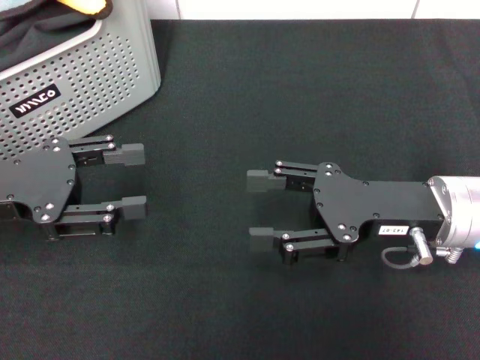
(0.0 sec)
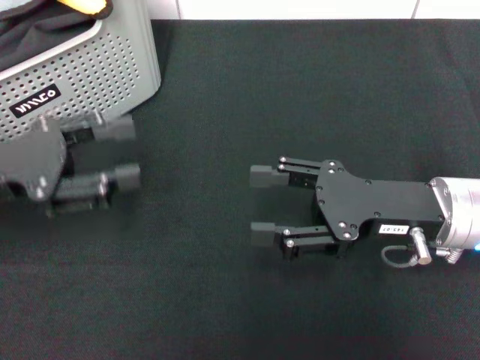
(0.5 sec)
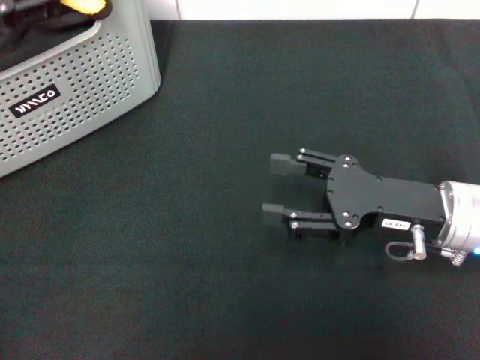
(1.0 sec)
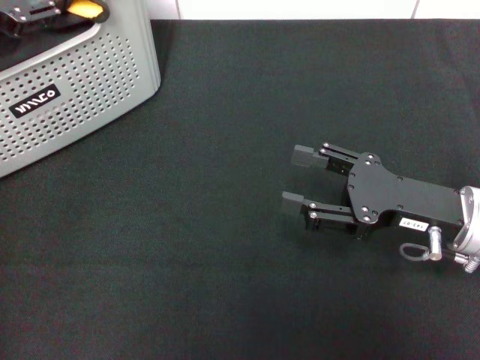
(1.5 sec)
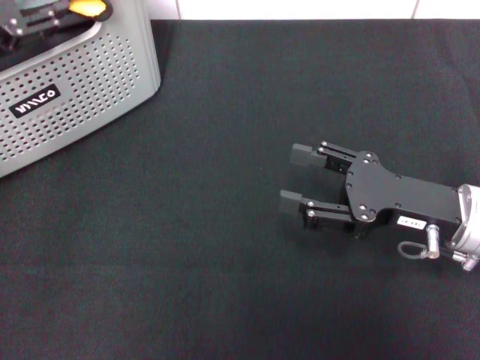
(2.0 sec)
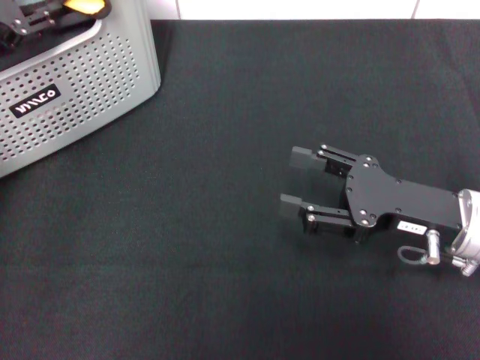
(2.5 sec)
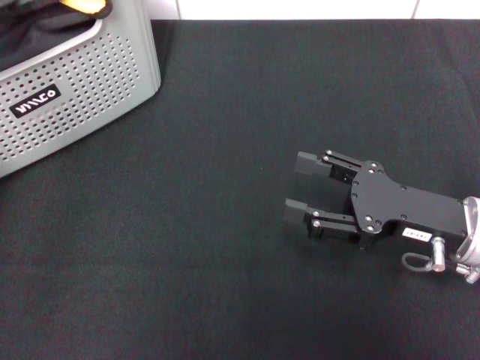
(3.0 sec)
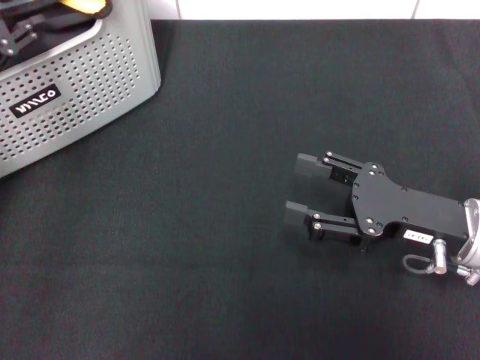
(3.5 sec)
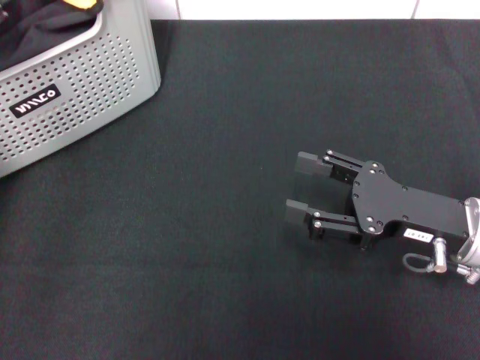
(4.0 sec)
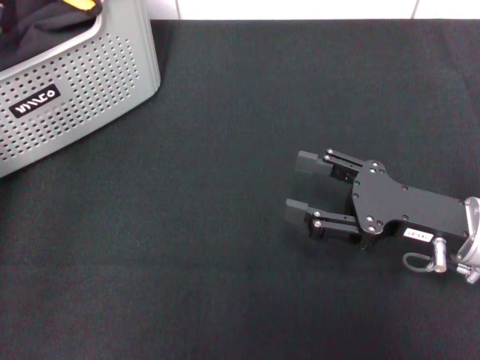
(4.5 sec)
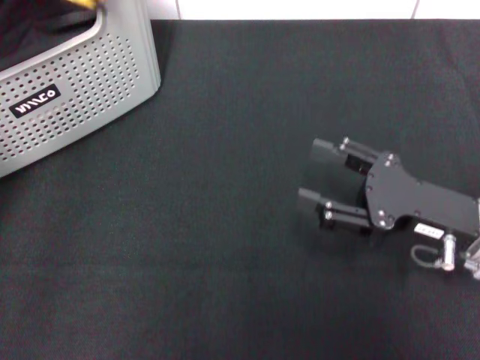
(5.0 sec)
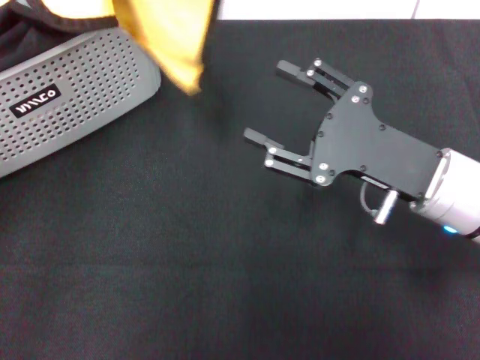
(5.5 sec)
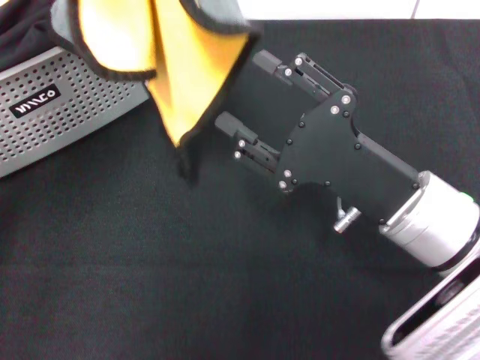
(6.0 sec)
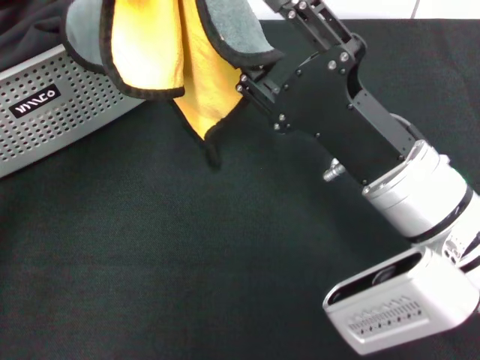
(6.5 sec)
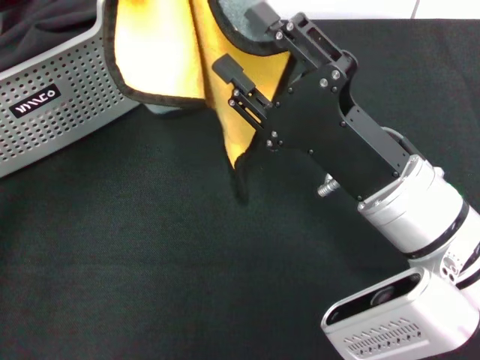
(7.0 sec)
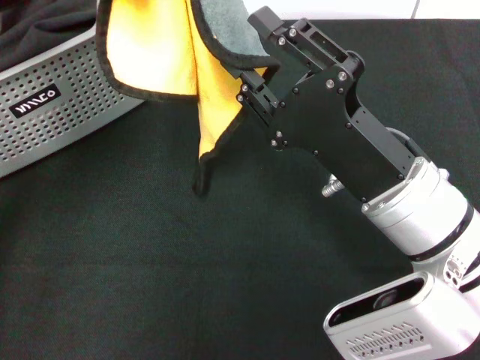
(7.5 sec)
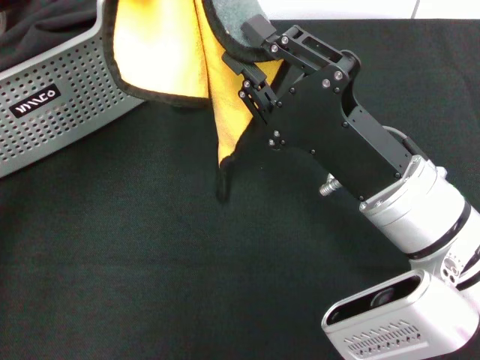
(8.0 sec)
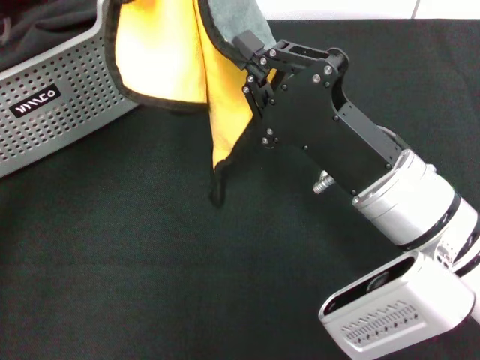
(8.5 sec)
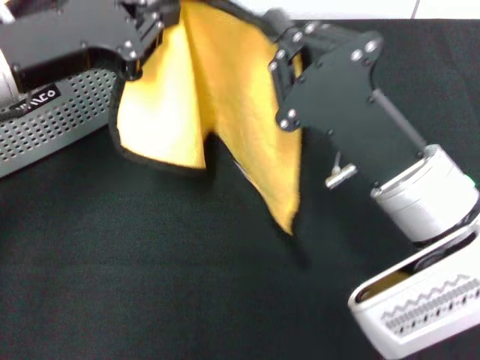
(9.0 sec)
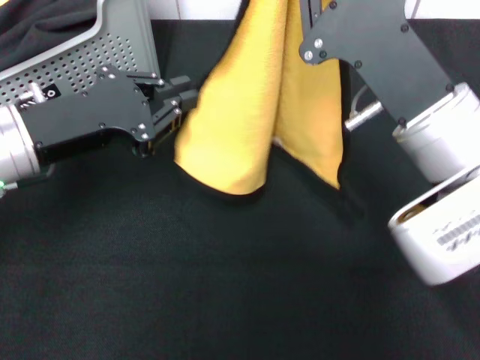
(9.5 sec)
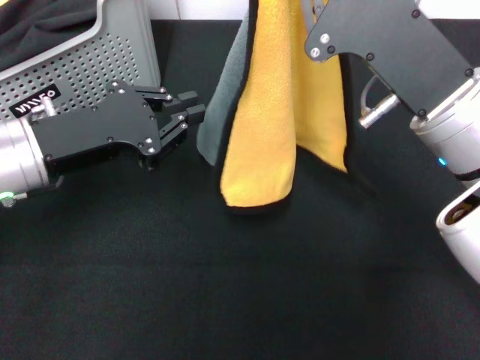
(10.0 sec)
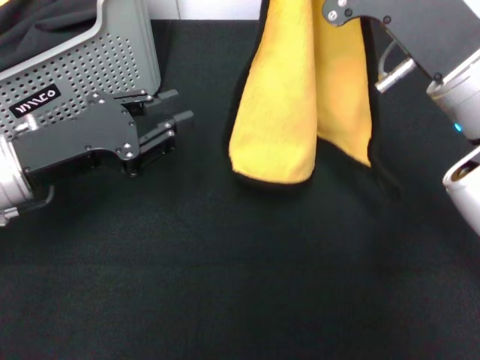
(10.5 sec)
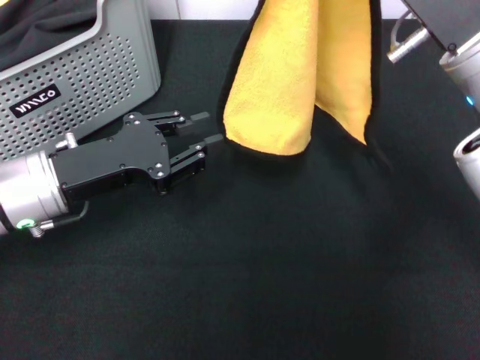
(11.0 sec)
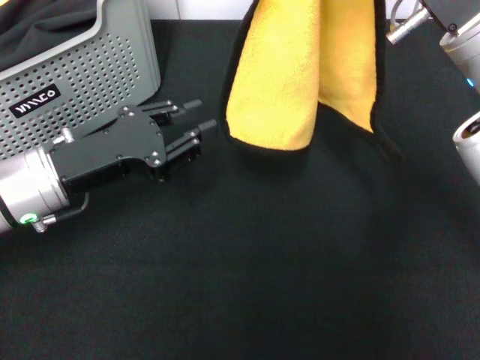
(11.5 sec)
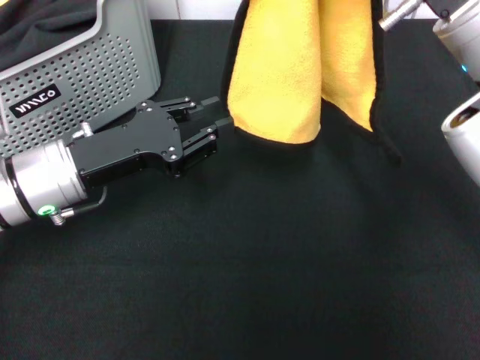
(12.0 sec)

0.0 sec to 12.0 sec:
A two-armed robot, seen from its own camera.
Task of the whole recording: pick up the towel from the storage box and lay it flat on the black tablecloth.
Step, 0.0 sec to 4.5 sec: Pick up a towel with the left gripper.
Step, 5.0 sec to 8.5 sec: Spread the towel flat with the left gripper.
0.0 sec to 2.0 sec: The left gripper heads upward and forward, covering some 10 cm.
2.0 sec to 4.0 sec: The left gripper closes its fingers.
4.0 sec to 6.0 sec: The left gripper shifts some 10 cm to the right, upward and backward, and closes its fingers; the right gripper is displaced to the left by some 5 cm.
6.0 sec to 8.0 sec: The right gripper closes its fingers.
8.0 sec to 10.0 sec: The right gripper travels upward by some 5 cm, and closes its fingers. The left gripper heads downward, covering approximately 15 cm.
10.0 sec to 12.0 sec: The right gripper shifts by roughly 5 cm. Meanwhile the left gripper travels downward by roughly 5 cm.

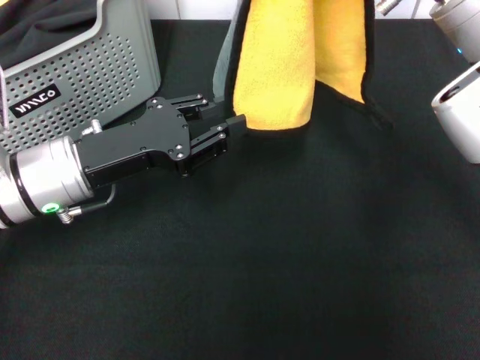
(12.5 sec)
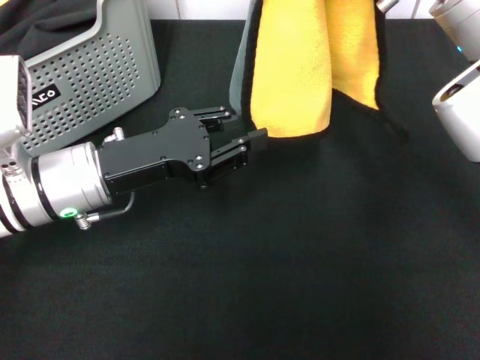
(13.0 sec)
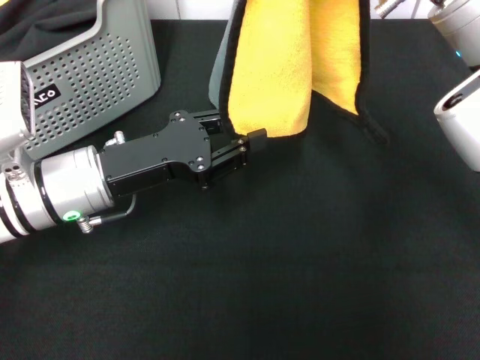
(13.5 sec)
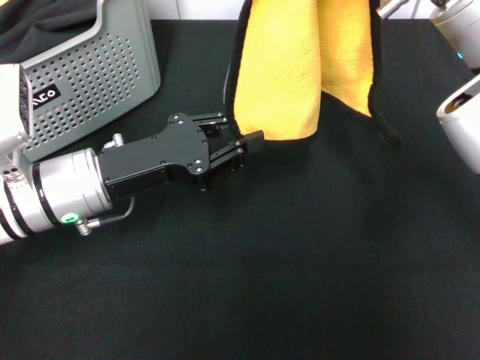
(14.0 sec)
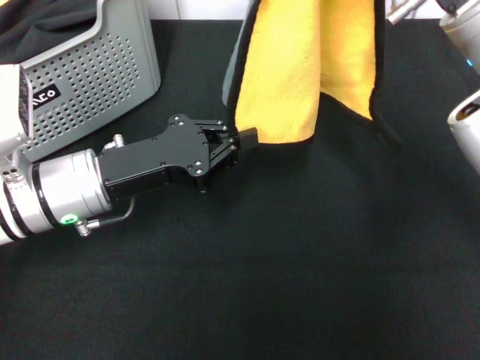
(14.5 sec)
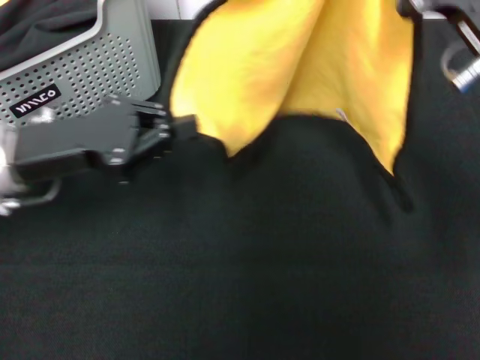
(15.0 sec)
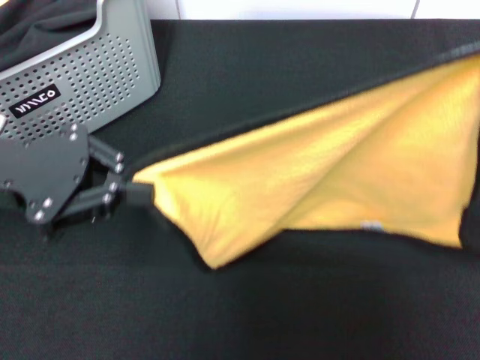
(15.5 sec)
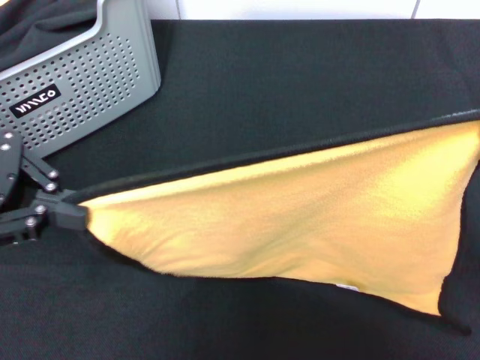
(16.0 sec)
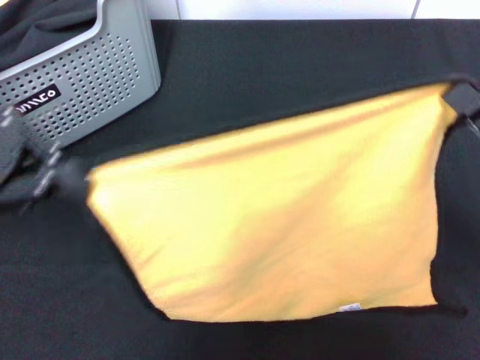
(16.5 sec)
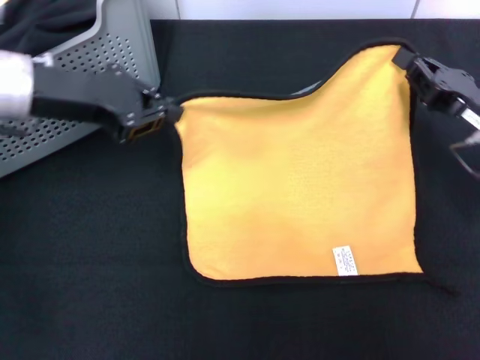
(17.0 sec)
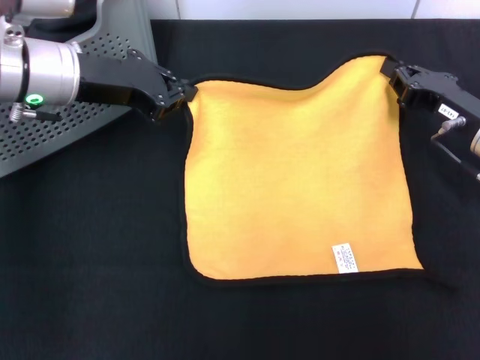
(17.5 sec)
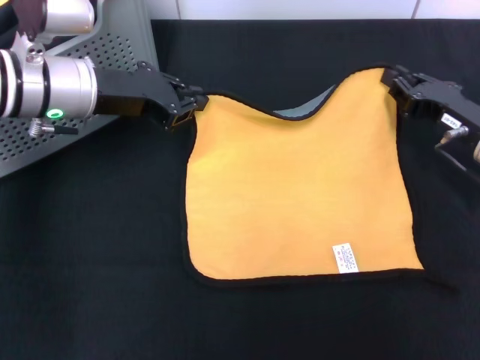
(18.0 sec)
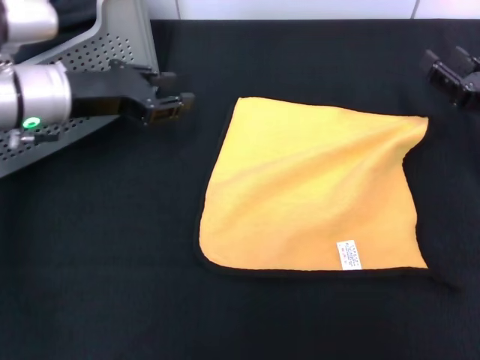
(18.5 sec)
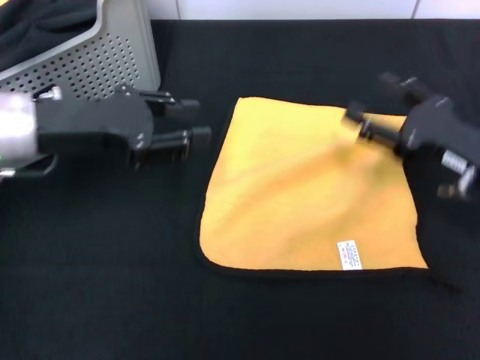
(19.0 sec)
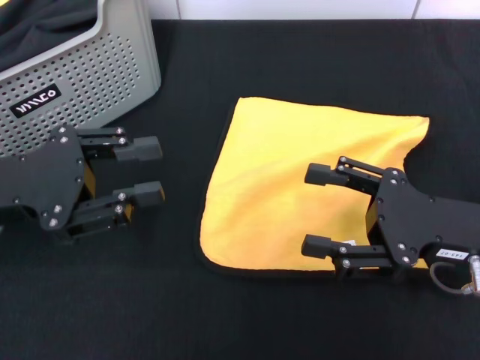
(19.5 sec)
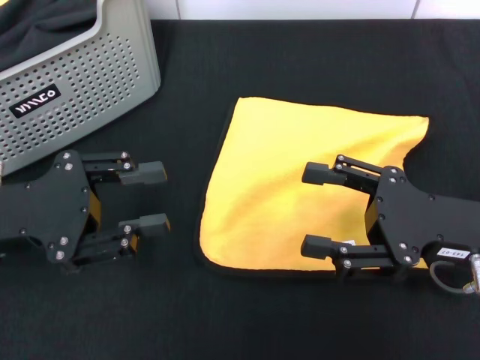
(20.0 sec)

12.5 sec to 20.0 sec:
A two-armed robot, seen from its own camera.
Task of the whole recording: pick up the towel from the storage box and lay it flat on the black tablecloth.
Step, 12.5 sec to 18.0 sec: Spread the towel flat with the right gripper.
12.5 sec to 14.5 sec: The grippers move only a little.
14.5 sec to 16.5 sec: The left gripper heads upward and to the left, covering approximately 20 cm; the right gripper moves downward, to the right and backward, approximately 20 cm.
16.5 sec to 18.0 sec: The left gripper moves to the right, forward and downward, some 15 cm. The right gripper heads forward, covering approximately 15 cm.
18.0 sec to 20.0 sec: The right gripper moves backward, about 10 cm, and opens up; the left gripper moves backward and to the left, about 15 cm, and opens.
